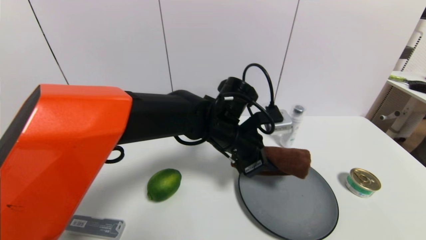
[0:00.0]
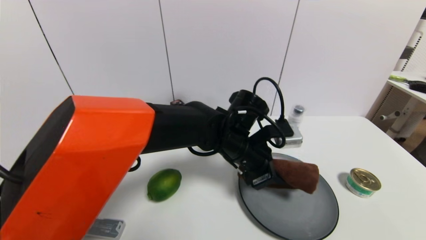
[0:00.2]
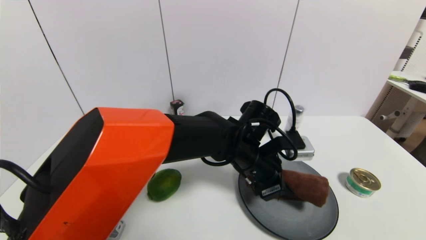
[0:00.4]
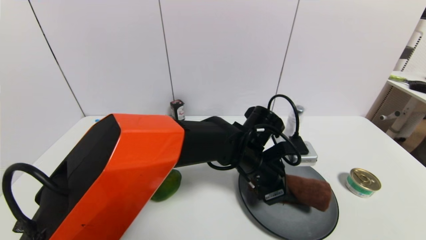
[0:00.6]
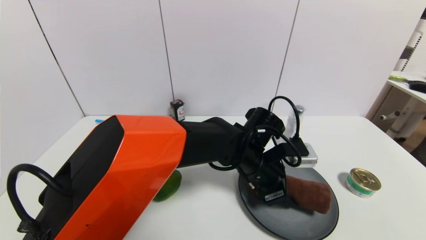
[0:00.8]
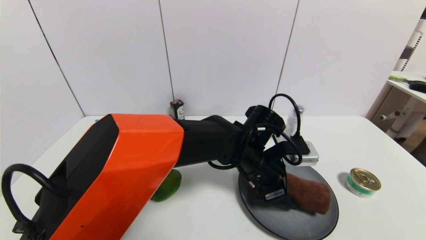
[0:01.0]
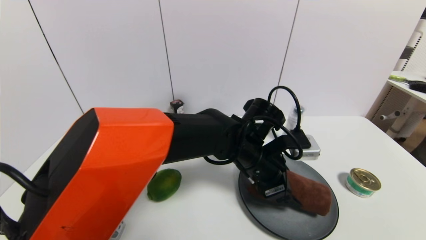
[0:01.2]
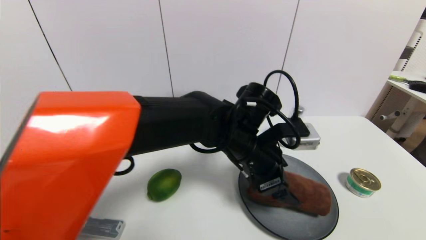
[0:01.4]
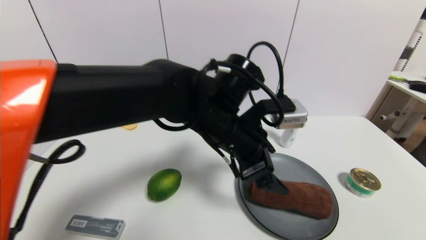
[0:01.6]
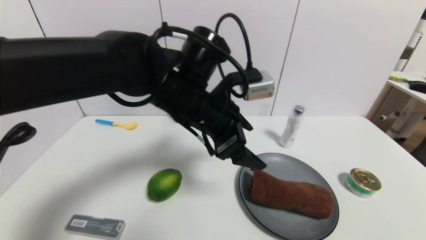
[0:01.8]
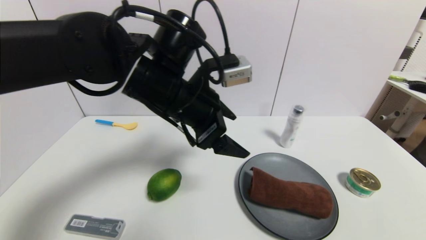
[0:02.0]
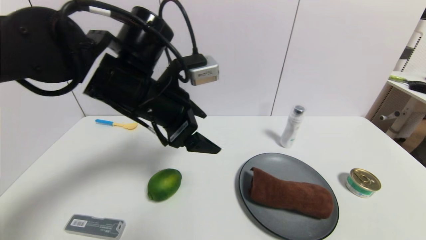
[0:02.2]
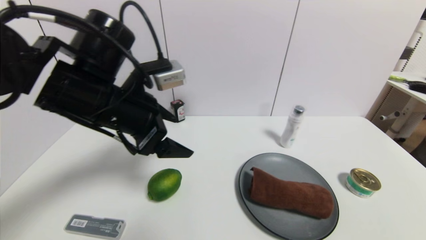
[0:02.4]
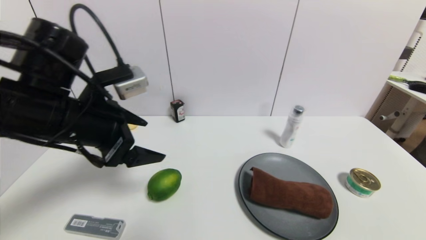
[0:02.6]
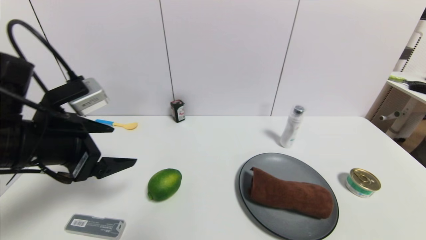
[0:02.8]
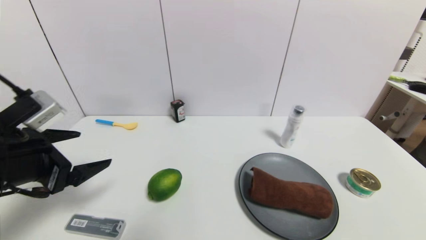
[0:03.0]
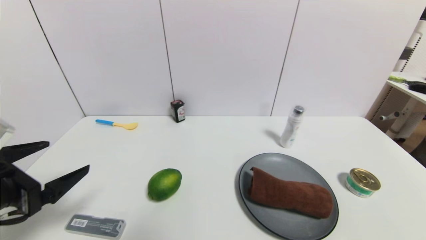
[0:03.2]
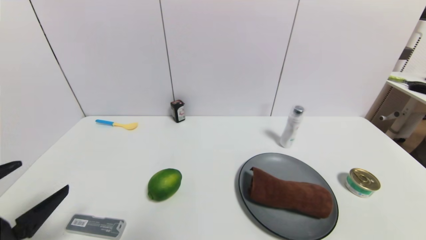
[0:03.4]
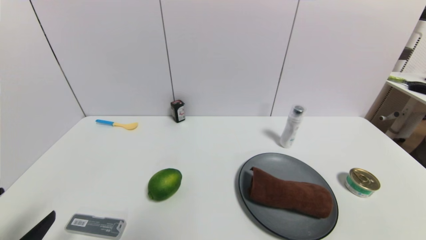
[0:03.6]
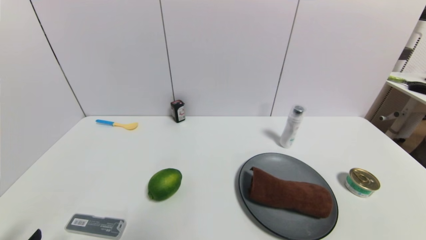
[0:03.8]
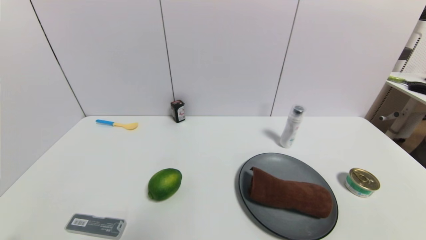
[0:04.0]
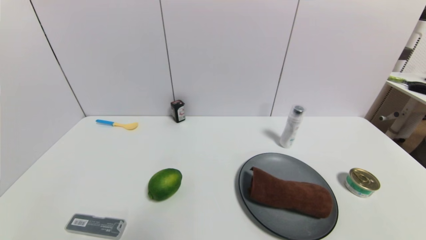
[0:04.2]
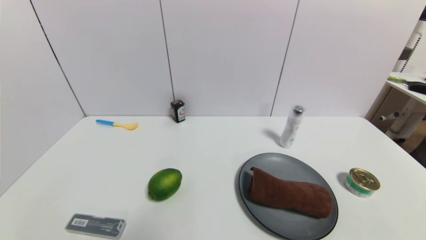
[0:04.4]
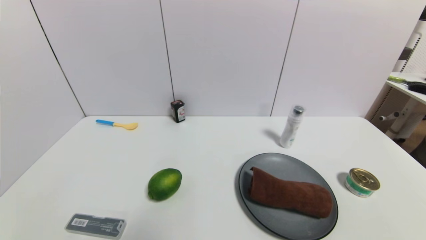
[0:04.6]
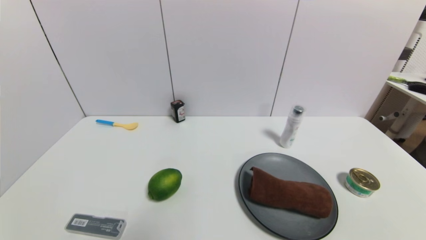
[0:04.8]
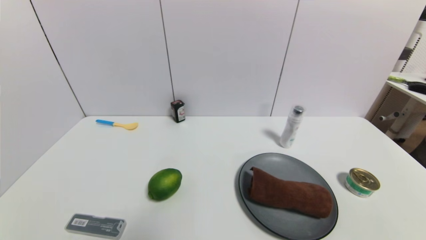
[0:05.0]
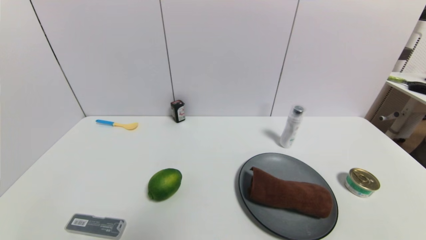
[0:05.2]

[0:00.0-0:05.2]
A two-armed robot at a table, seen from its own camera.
Task of the whole recording: use a gripper to pick the target object and place on the gray plate.
Step, 0:00.0 to 0:01.4: Place the brown towel on the gray plate with the left gripper.
0:00.0 to 0:01.8: The left gripper moves upward and to the left, some 10 cm, and opens up.
0:01.8 to 0:03.4: The left gripper travels to the left and backward by about 35 cm.
0:03.4 to 0:05.2: The left gripper goes approximately 15 cm downward and backward.
